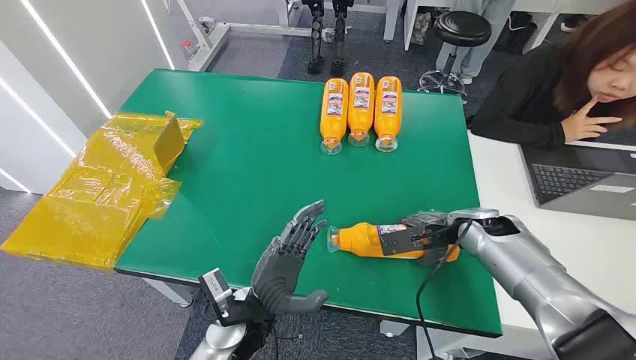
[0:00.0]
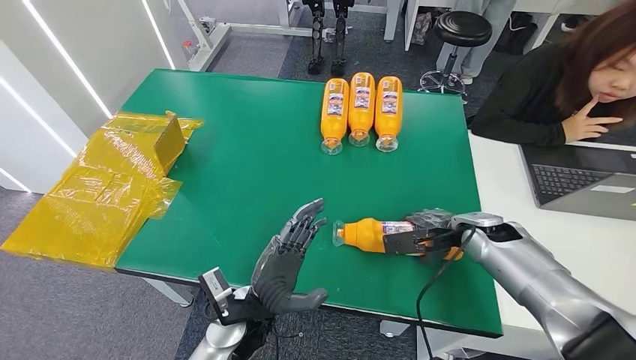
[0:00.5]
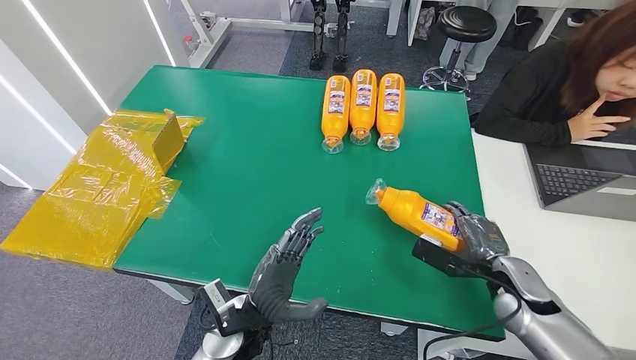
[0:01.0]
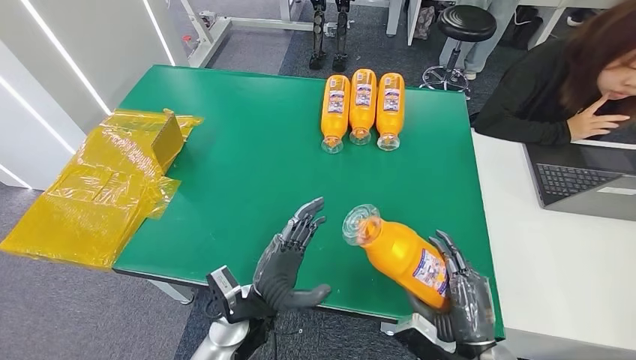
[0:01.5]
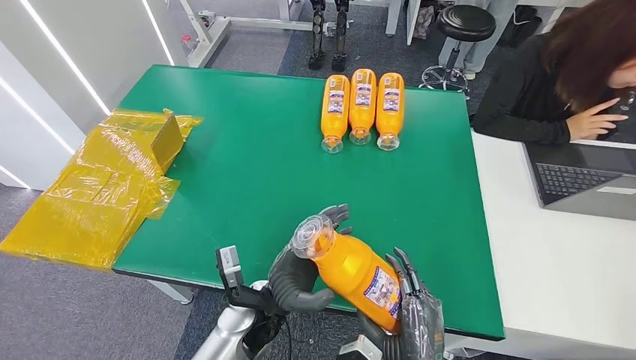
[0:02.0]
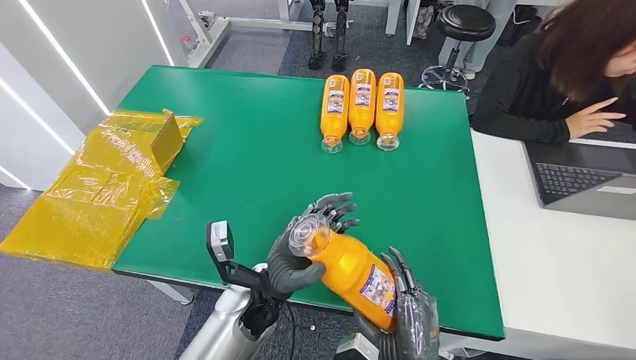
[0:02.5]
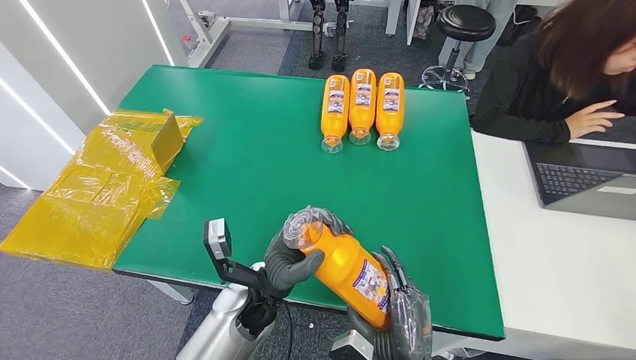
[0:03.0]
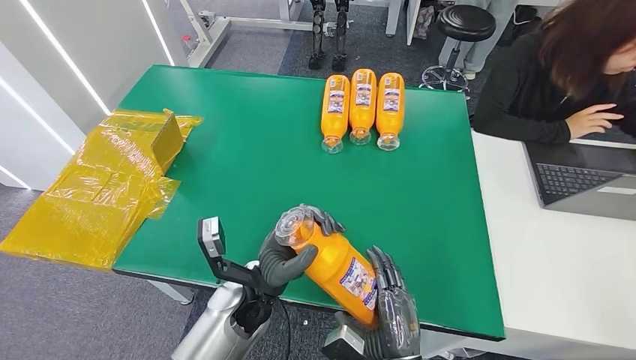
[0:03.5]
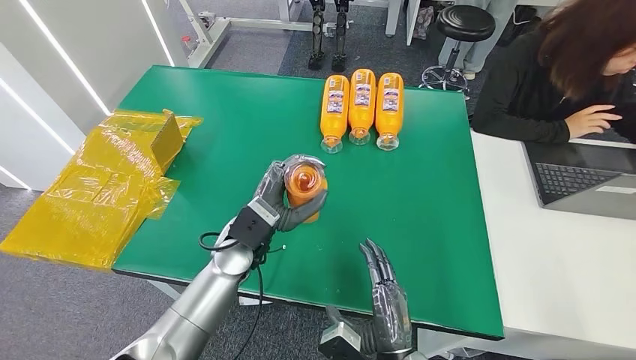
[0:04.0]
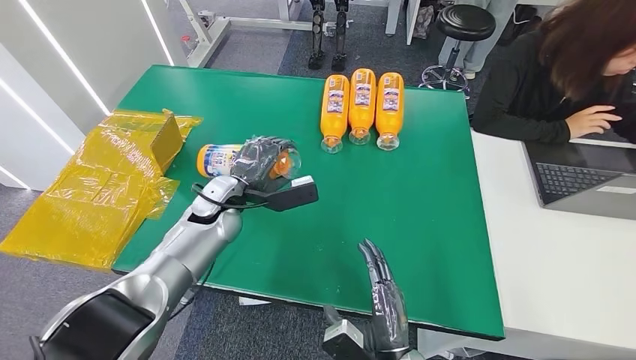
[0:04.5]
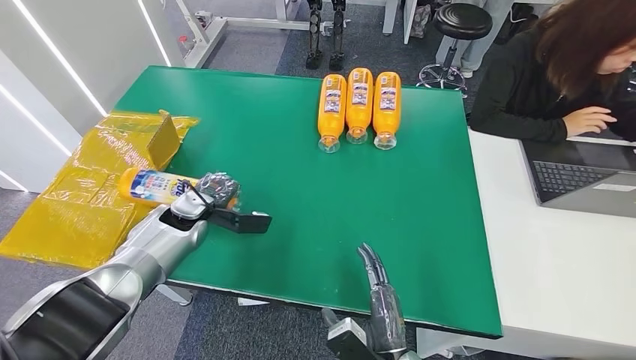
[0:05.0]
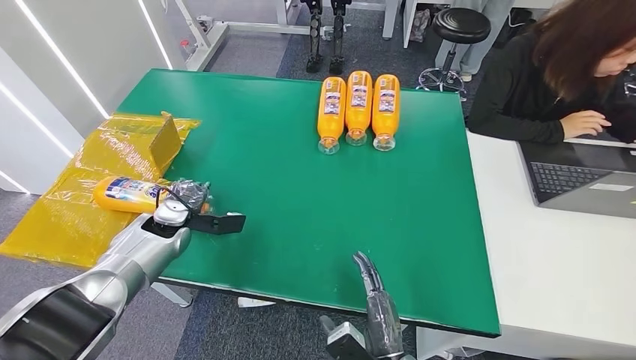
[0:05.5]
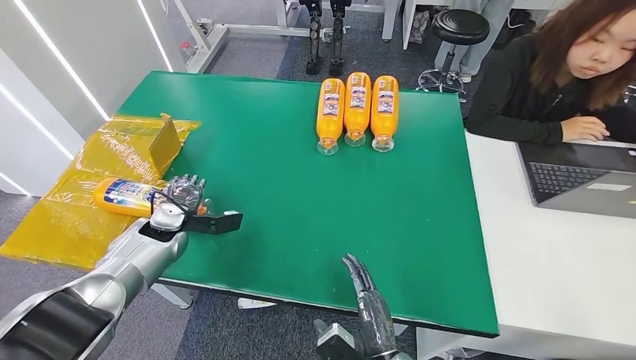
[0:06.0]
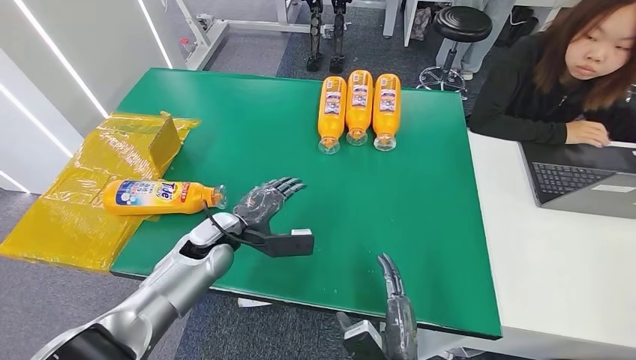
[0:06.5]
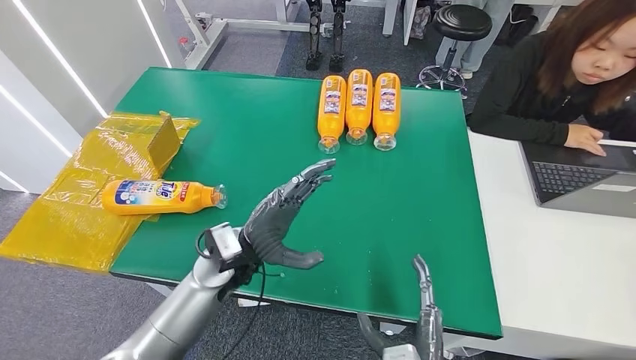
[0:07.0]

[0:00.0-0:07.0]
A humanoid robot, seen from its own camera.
Step, 0:00.0 to 0:02.0: Pick up the bottle from the table.
Step, 0:02.5 to 0:07.0: Turn the bottle to the front side.
0:02.0 to 0:03.5: The hands make only small movements.
0:05.0 to 0:07.0: The right hand shifts by approximately 5 cm, while the left hand shifts about 15 cm to the right and backward.
